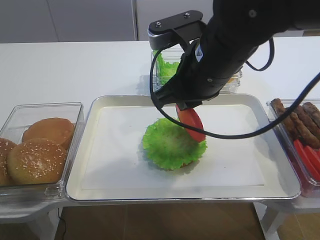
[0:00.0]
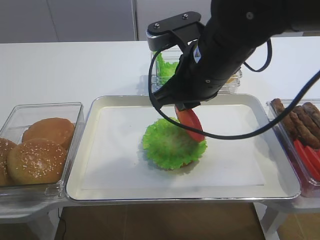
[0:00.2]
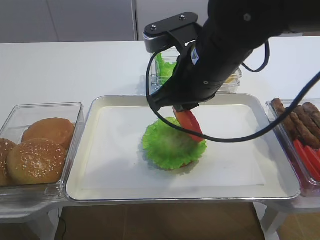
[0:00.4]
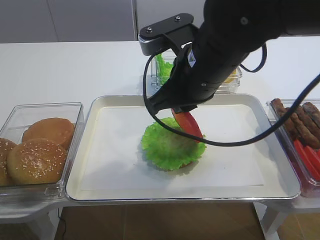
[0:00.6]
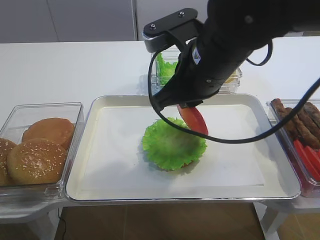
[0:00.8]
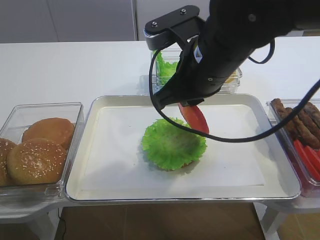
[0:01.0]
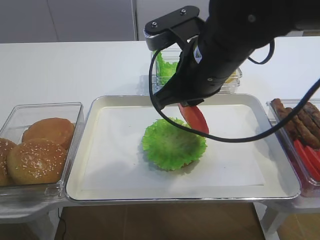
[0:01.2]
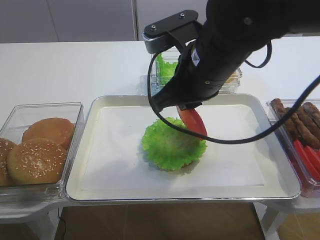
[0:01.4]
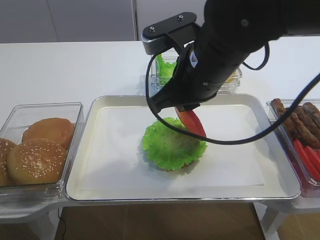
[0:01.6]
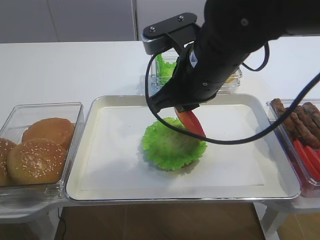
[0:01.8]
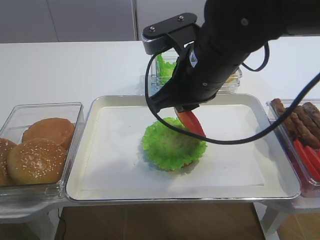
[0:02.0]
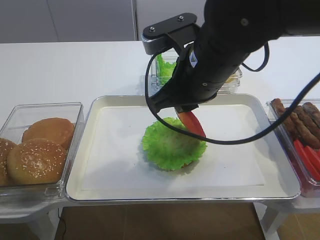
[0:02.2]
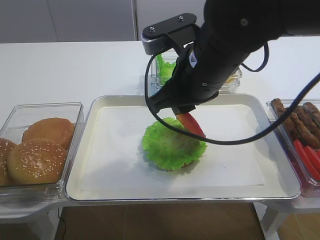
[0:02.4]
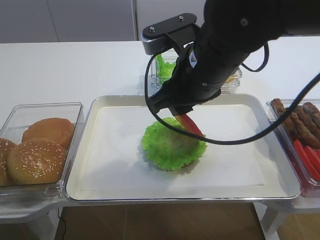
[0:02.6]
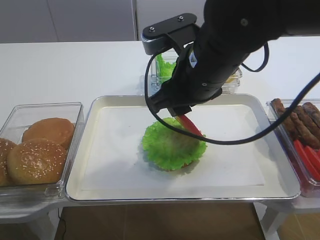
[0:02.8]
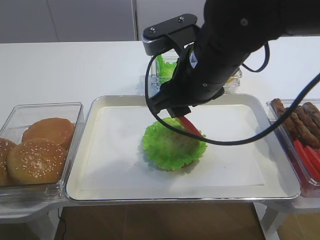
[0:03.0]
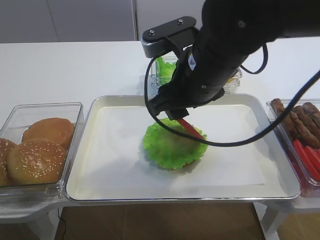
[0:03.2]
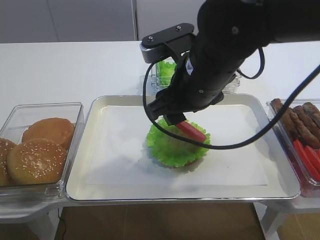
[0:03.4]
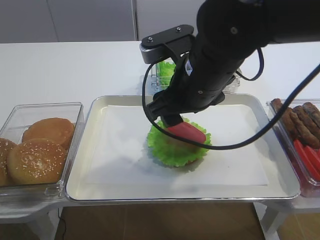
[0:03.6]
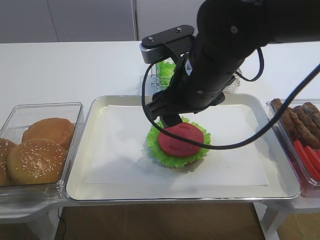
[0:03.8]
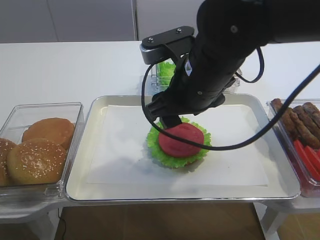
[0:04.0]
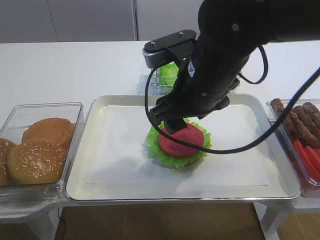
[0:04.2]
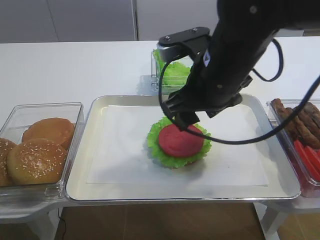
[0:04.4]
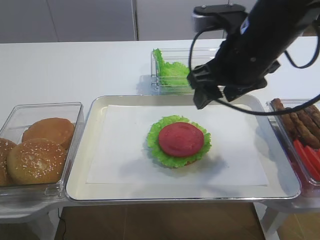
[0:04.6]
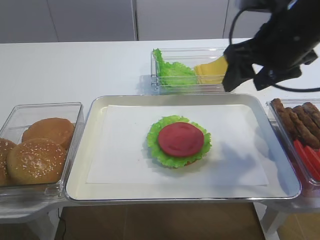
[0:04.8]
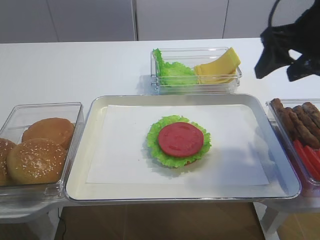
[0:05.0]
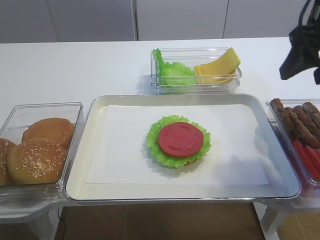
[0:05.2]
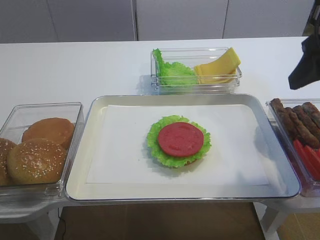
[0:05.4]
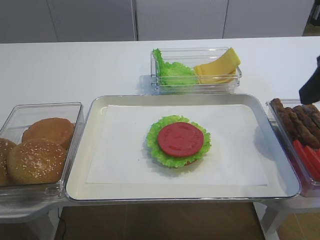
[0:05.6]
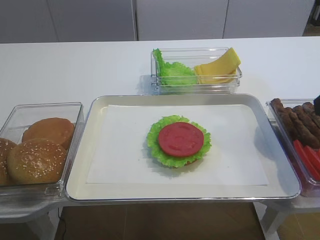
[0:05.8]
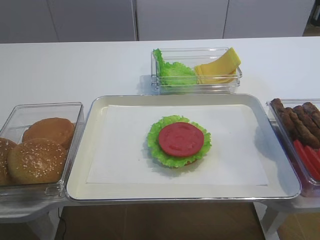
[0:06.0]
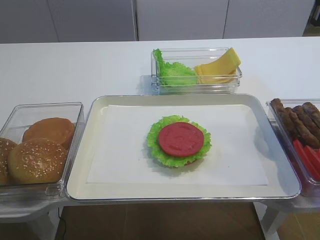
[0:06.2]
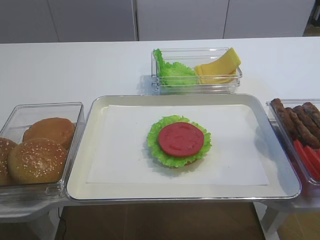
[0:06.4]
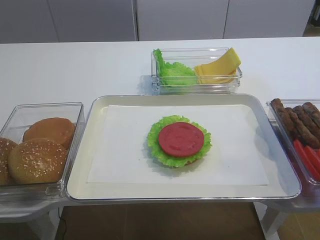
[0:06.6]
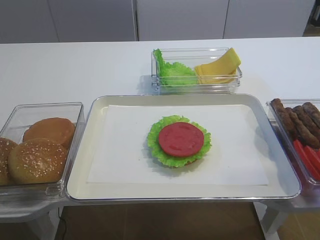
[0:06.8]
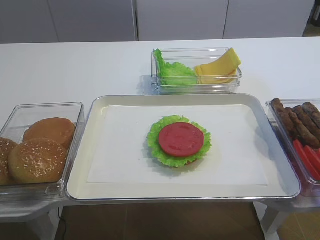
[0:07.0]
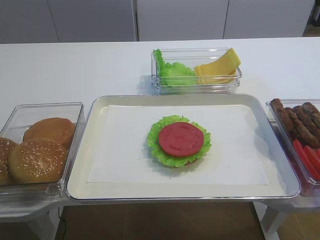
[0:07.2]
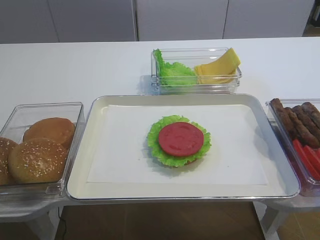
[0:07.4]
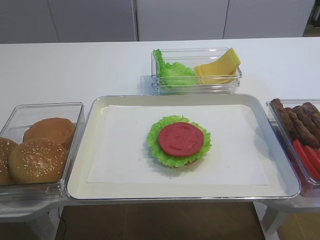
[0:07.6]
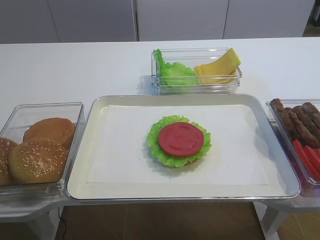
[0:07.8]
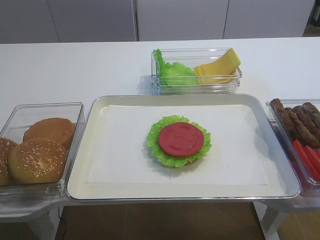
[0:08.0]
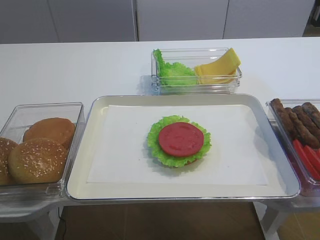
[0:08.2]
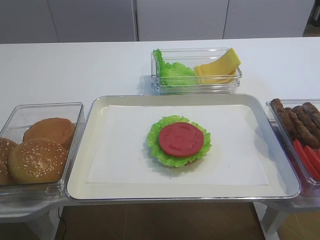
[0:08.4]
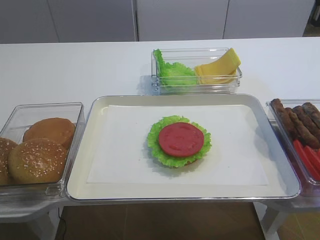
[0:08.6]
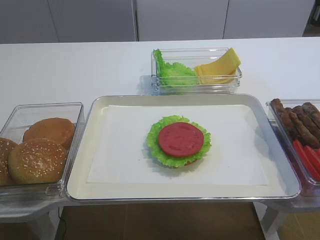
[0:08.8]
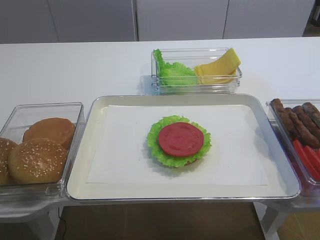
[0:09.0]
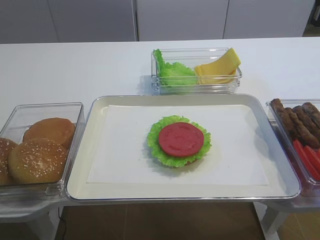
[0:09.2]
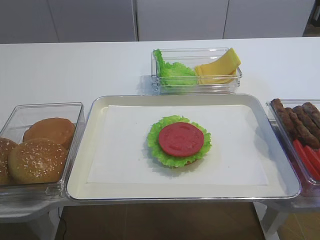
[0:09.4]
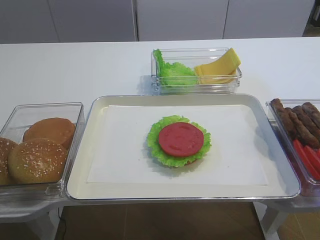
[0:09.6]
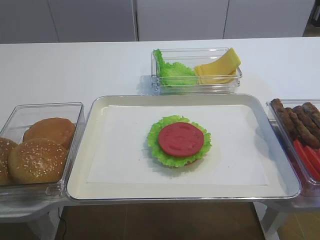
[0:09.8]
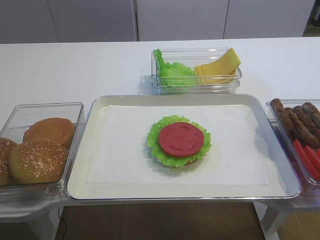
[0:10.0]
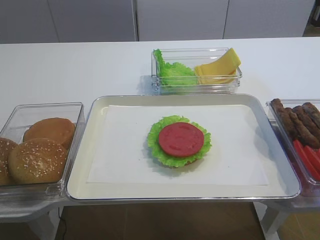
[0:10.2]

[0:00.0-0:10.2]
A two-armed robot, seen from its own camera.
Step, 0:00.0 to 0:04.2: Place the tomato slice on the lettuce leaf with the right gripper.
0:00.0 to 0:01.4: There are only small adjustments of the grippers.
0:01.4 to 0:03.0: The right gripper opens its fingers.
0:03.0 to 0:04.4: The grippers move only a little.
0:04.4 to 0:05.8: The right gripper is displaced to the right and backward by roughly 20 cm.
0:05.8 to 0:07.2: The right gripper travels backward by roughly 20 cm.
0:08.8 to 0:10.2: Both grippers stay put.

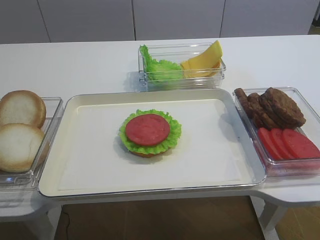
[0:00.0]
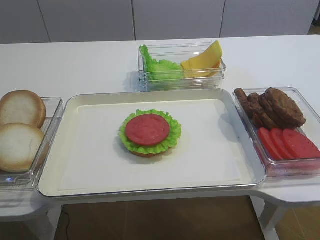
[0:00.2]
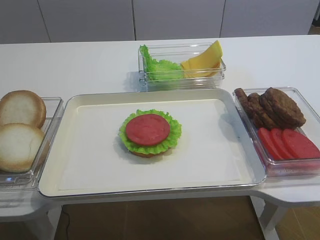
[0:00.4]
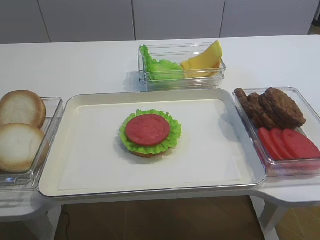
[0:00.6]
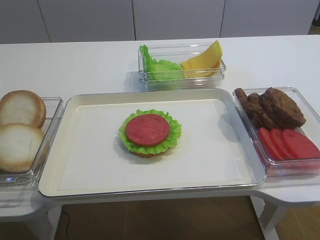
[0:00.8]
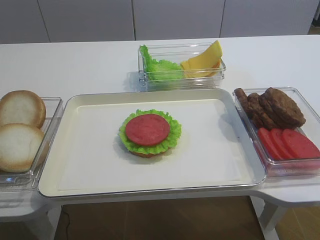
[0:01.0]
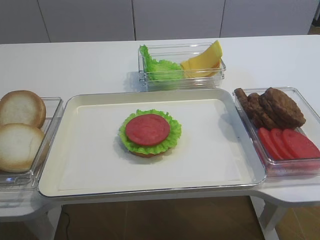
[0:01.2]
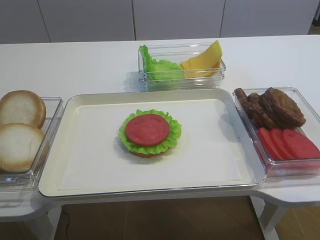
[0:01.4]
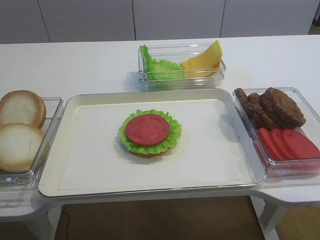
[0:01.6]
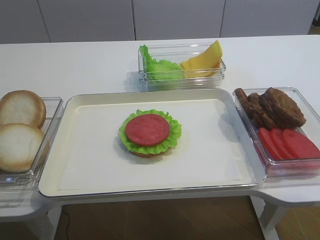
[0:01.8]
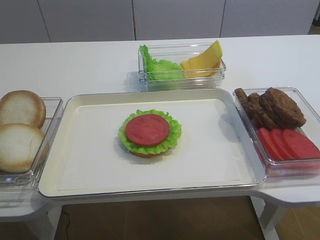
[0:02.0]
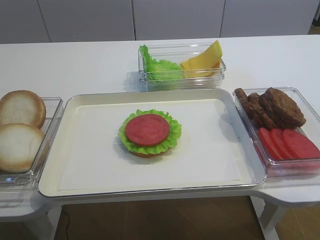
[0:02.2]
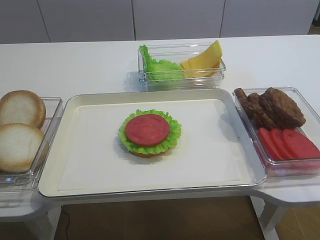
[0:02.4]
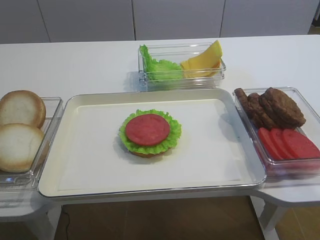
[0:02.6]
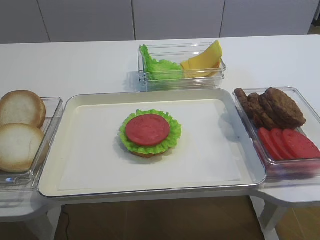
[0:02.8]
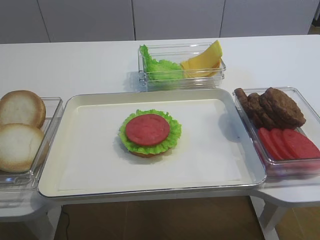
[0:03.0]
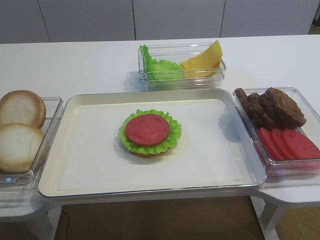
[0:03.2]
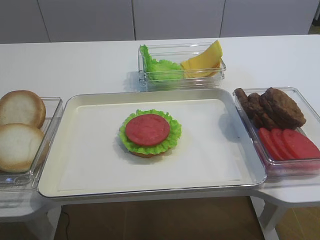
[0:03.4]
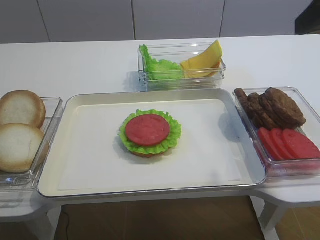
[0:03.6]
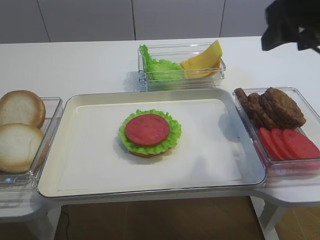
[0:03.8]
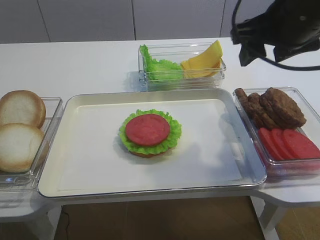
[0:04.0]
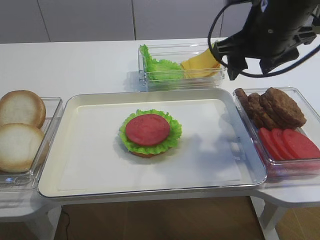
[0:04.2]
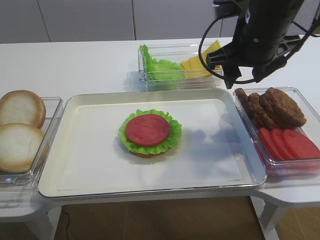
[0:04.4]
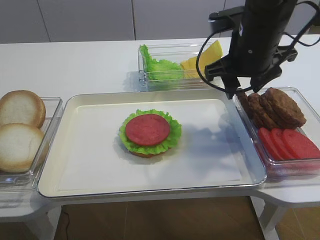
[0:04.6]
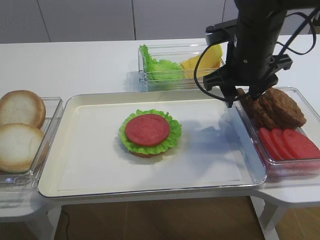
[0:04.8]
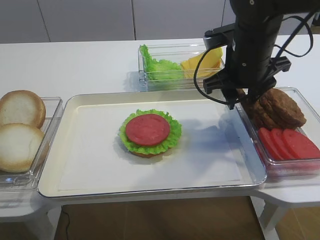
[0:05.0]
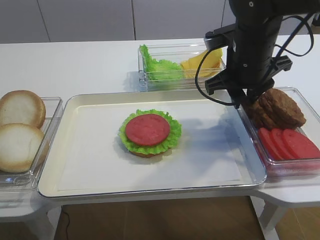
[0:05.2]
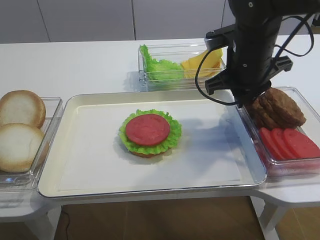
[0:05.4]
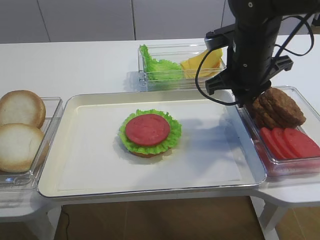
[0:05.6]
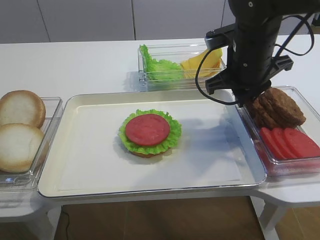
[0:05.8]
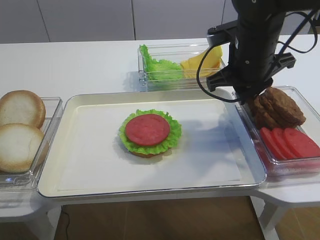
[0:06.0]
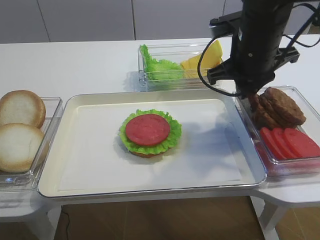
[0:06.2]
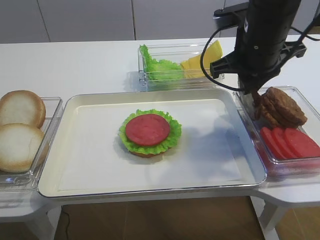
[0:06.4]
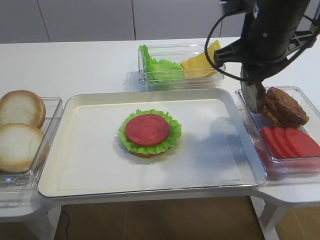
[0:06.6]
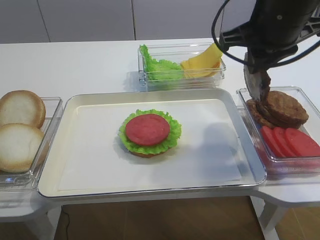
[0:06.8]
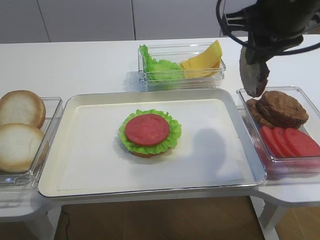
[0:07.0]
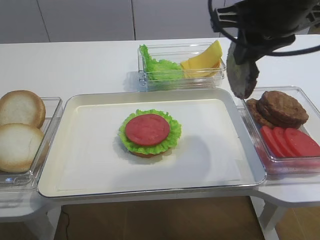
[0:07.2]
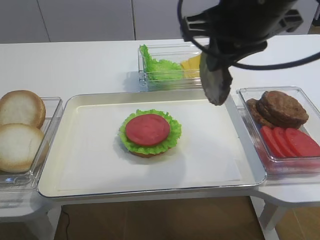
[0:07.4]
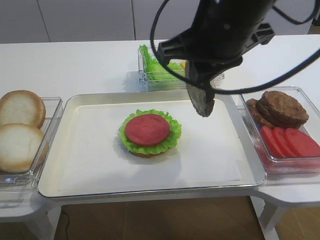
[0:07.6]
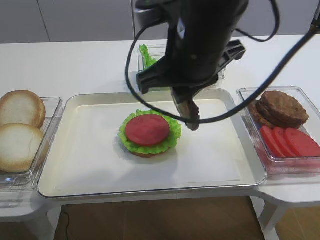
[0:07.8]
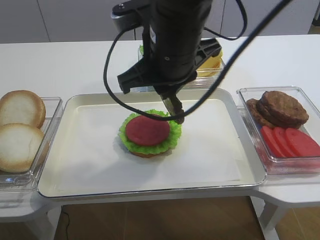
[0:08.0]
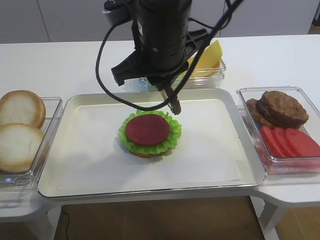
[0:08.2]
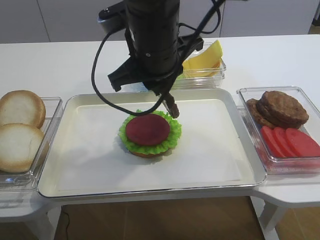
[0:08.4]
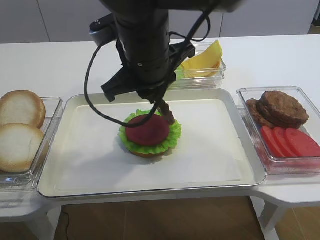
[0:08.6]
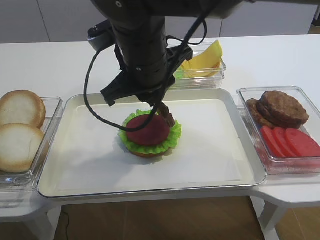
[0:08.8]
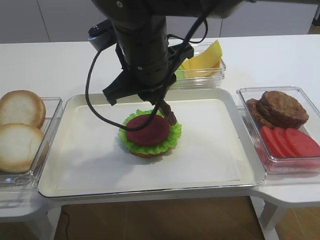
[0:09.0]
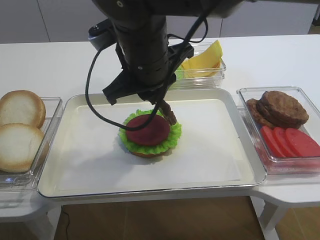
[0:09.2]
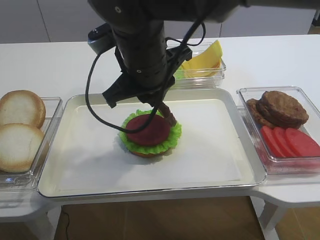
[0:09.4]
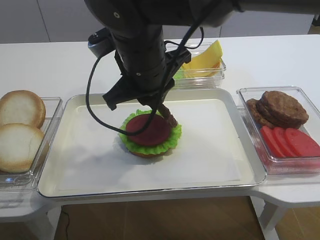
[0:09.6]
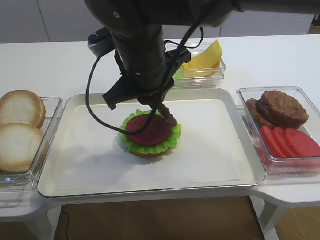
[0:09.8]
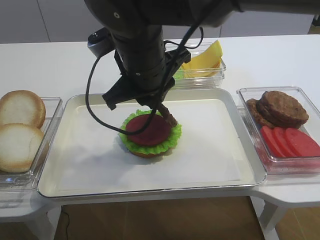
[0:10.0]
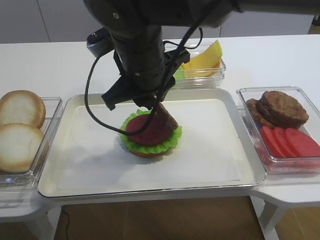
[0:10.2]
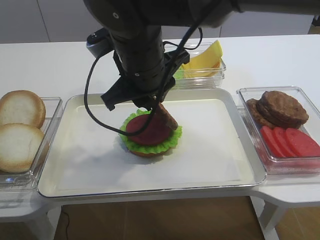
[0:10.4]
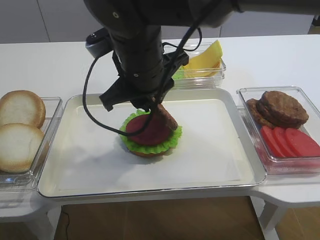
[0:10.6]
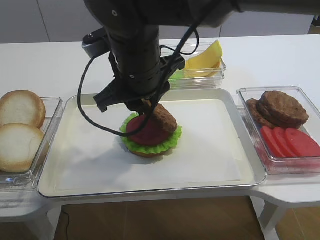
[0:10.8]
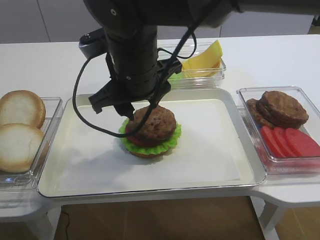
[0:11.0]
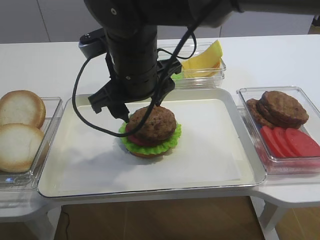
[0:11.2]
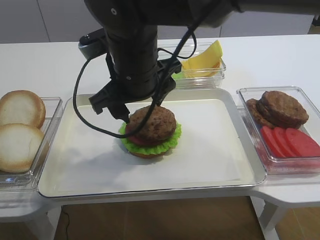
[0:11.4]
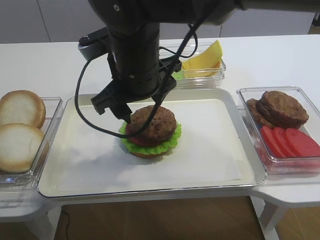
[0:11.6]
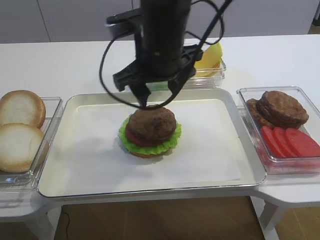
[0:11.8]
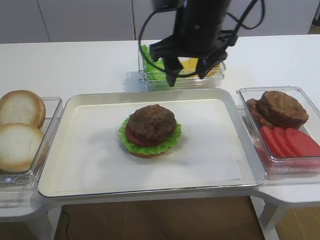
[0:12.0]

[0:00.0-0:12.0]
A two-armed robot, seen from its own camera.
Step, 0:00.0 to 0:06.6: Pick up the cutlet with the right gripper.
Step, 0:06.8 to 0:11.2: Place the cutlet on the tomato slice with the right gripper.
0:01.6 to 0:03.0: The right gripper travels forward and upward by approximately 10 cm, and opens its fingers.
0:03.0 to 0:04.4: The right gripper heads forward and to the left, covering about 25 cm.
0:04.4 to 0:06.0: The right gripper heads downward, covering approximately 5 cm, and closes up.
0:06.0 to 0:07.6: The right gripper moves upward and backward, about 15 cm.
0:07.6 to 0:09.0: The right gripper is displaced to the left and downward by roughly 15 cm.
0:09.0 to 0:10.4: Both grippers stay about where they are.
0:10.4 to 0:12.0: The right gripper shifts by roughly 5 cm, and opens.
